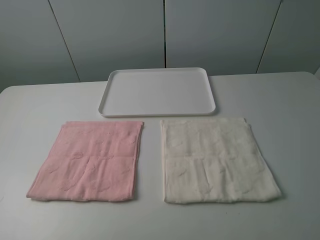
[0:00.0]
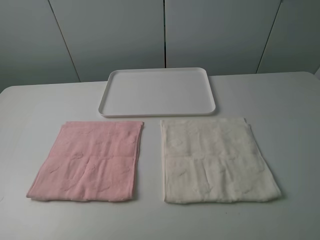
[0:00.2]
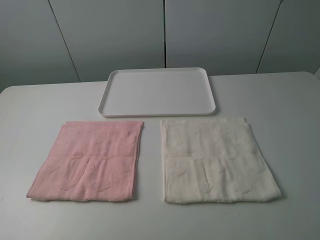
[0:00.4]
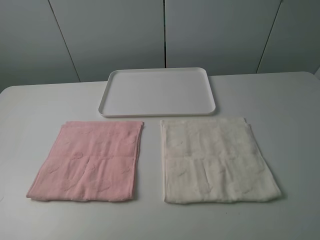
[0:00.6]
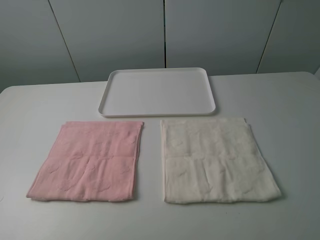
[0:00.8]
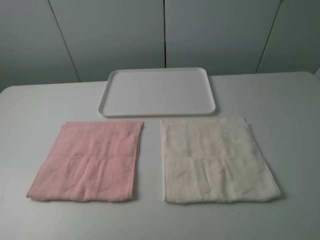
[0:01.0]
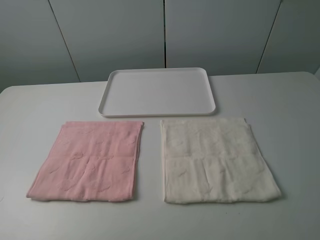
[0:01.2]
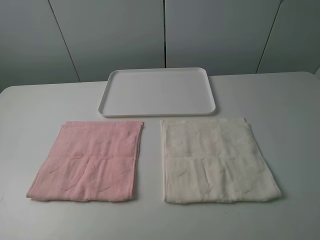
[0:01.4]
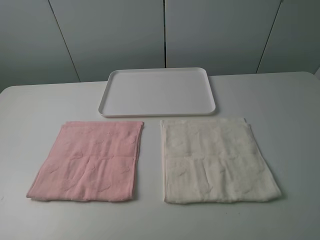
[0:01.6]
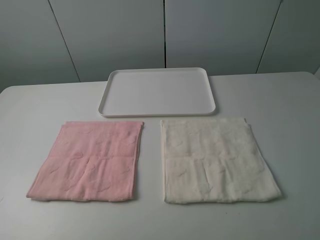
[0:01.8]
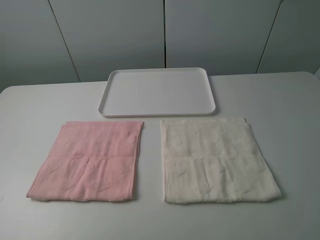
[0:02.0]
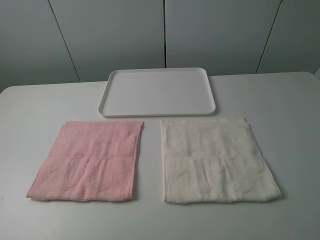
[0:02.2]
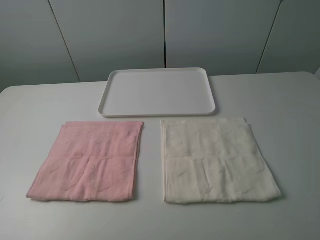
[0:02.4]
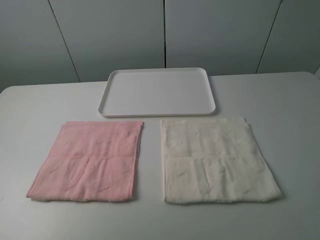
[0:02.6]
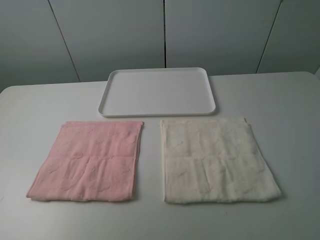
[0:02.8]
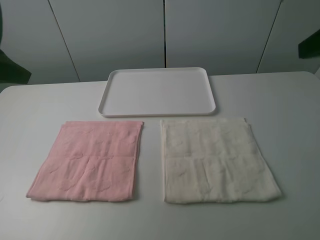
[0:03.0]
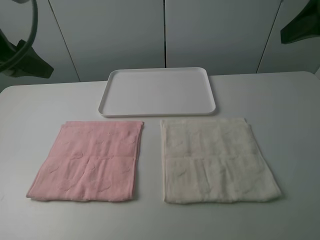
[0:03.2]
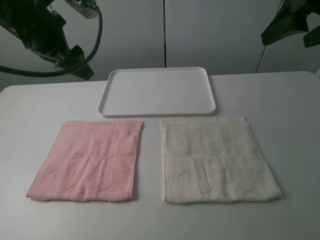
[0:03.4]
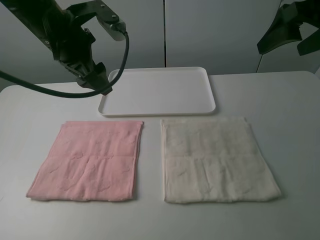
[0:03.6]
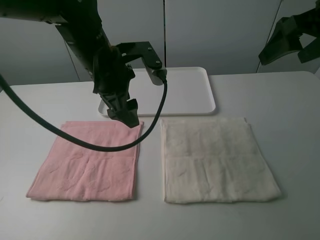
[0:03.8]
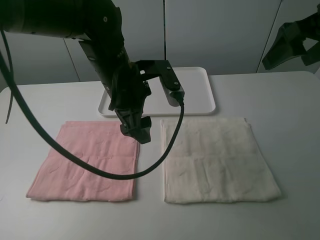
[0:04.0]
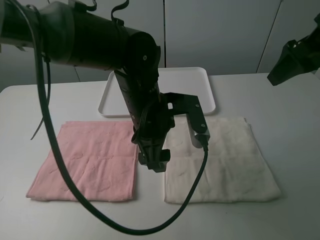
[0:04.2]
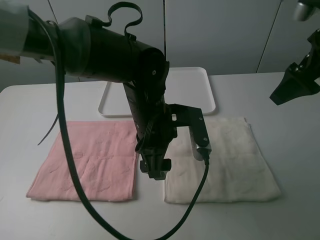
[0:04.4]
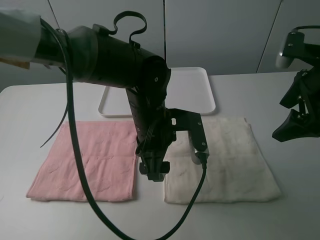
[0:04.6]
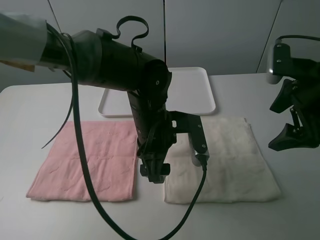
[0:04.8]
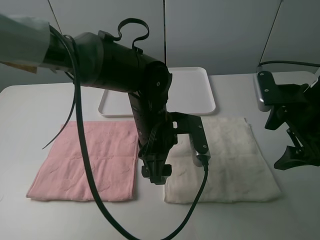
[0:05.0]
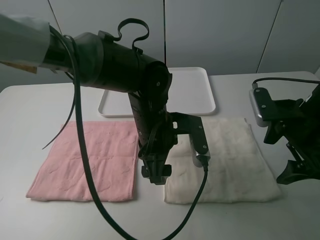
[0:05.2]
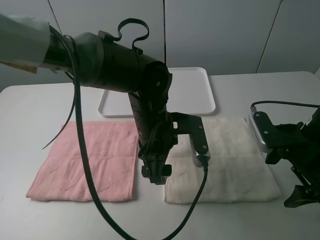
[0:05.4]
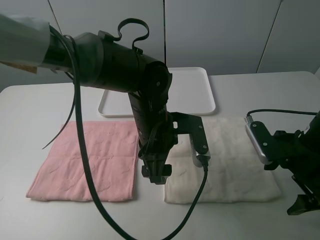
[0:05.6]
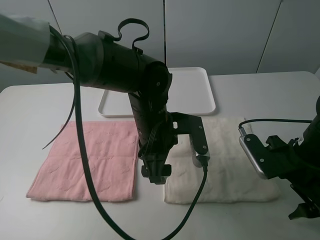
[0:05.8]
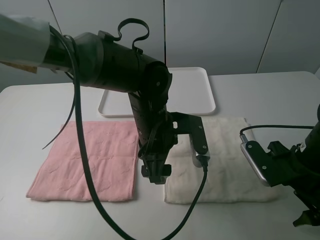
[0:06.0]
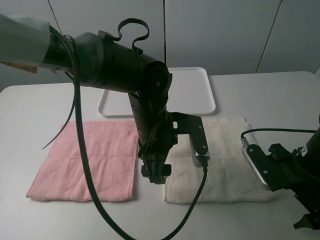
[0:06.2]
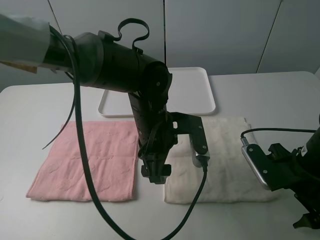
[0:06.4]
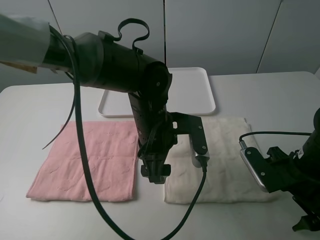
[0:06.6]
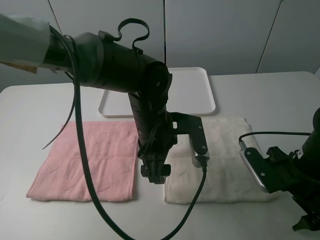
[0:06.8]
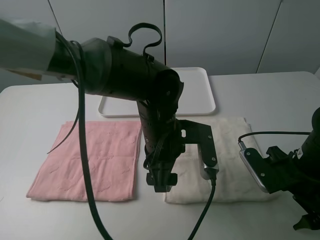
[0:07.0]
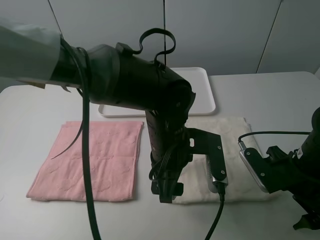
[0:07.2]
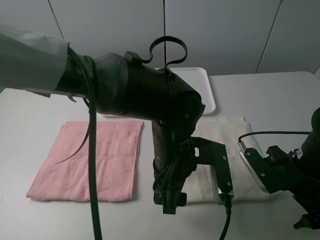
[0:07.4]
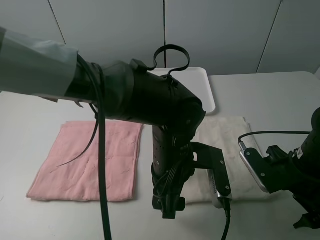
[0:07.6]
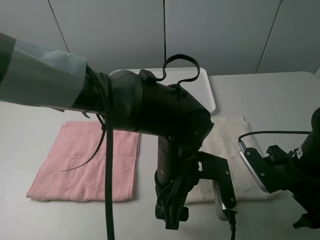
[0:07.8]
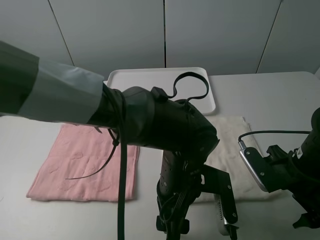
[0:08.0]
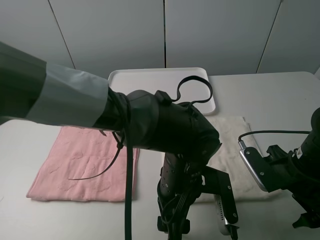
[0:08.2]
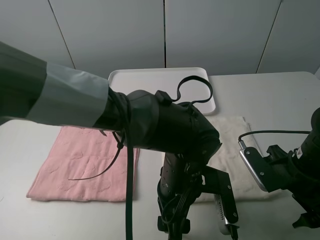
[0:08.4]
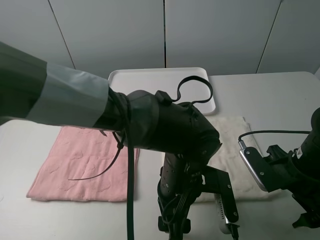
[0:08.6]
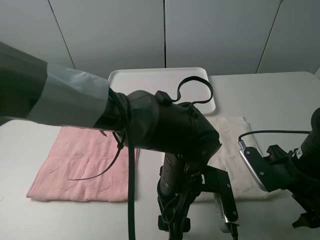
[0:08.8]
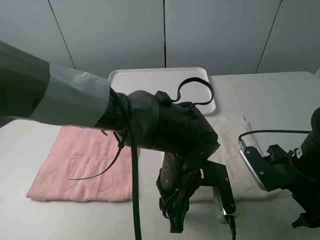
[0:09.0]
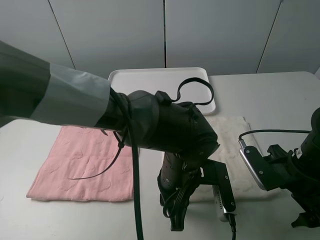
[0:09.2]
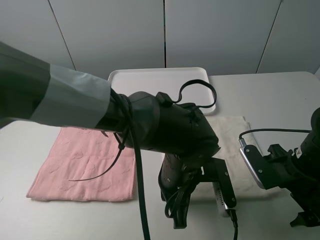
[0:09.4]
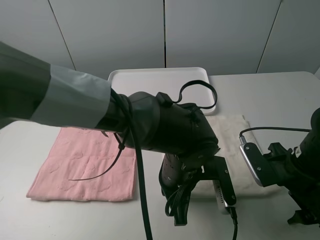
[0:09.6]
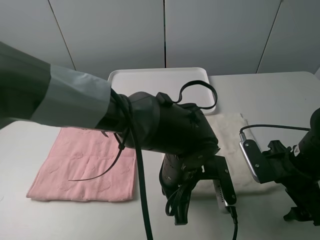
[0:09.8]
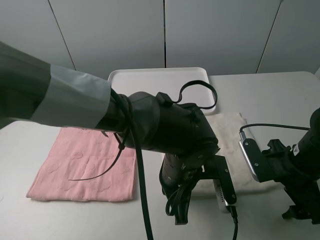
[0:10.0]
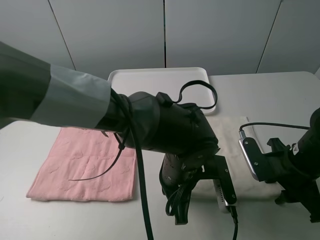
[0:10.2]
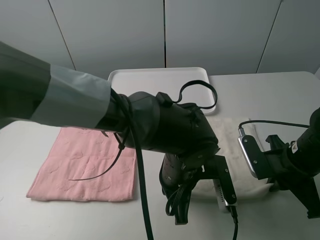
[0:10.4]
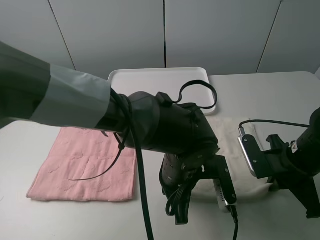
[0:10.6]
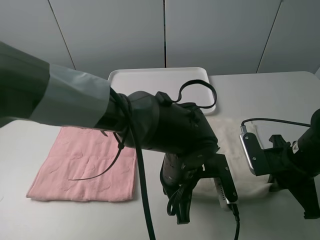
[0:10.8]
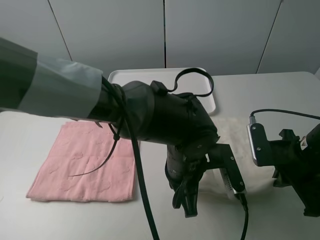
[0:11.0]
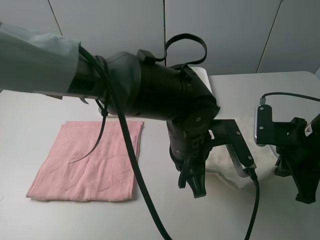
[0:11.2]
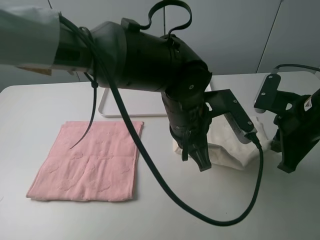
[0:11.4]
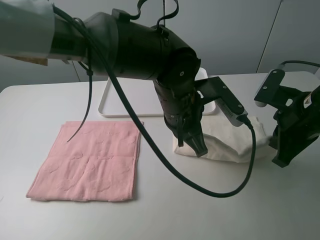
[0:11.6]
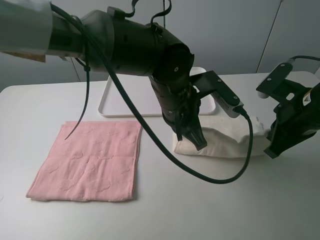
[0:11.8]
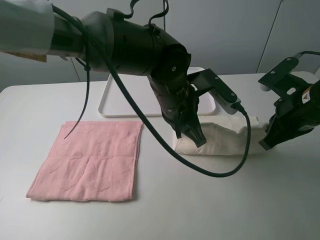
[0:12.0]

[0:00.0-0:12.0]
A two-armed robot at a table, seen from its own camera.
Task of the whole recording: fold one of the towels by two grippers and place it on the tray,then fold another towel by two grippers and place it on the folded towel.
Step, 0:00.0 to 0:10.4: Grasp the white towel with the left gripper.
0:00.0 to 0:01.6: Both grippers stay put.
0:01.6 to 0:03.0: The grippers both shift forward by roughly 20 cm.
0:03.0 to 0:04.4: The right gripper moves forward and downward, roughly 10 cm. Meanwhile the left gripper is displaced to the right and downward by some 30 cm.
0:04.4 to 0:06.0: The right gripper goes roughly 20 cm downward and backward.
0:06.0 to 0:07.6: The left gripper is displaced backward by approximately 5 cm.
0:07.6 to 0:09.0: The left gripper closes its fingers.
0:09.0 to 0:10.4: The left gripper closes. Meanwhile the right gripper closes its fingers.
0:10.4 to 0:12.0: The right gripper goes some 10 cm upward; the left gripper is displaced forward and upward by some 10 cm.

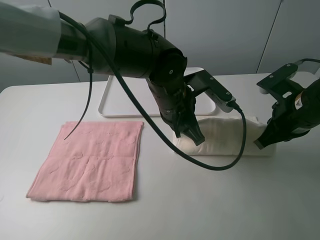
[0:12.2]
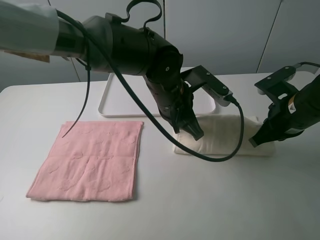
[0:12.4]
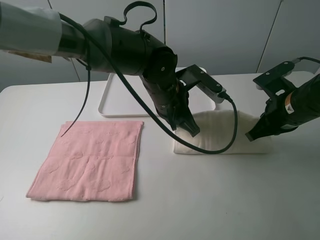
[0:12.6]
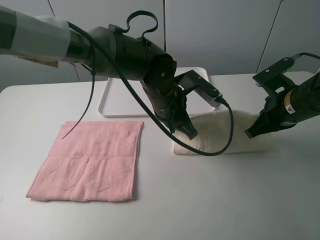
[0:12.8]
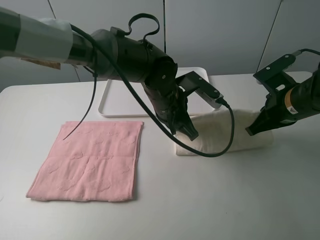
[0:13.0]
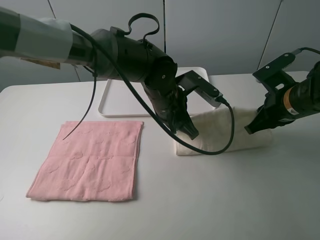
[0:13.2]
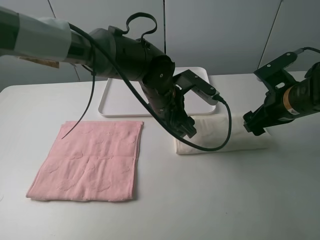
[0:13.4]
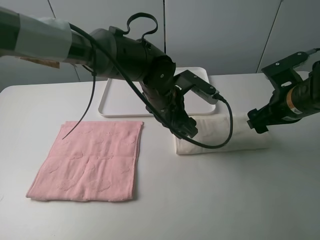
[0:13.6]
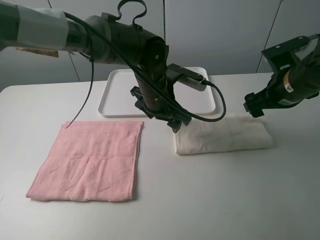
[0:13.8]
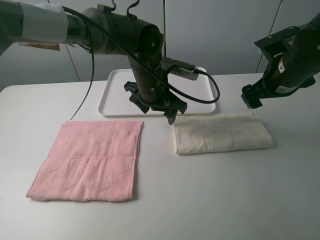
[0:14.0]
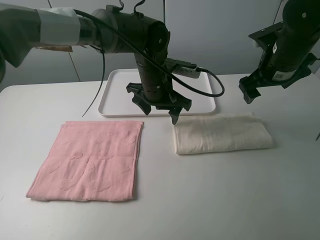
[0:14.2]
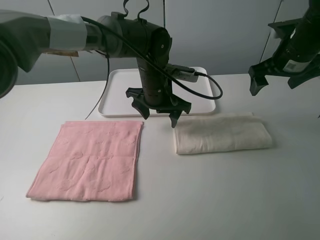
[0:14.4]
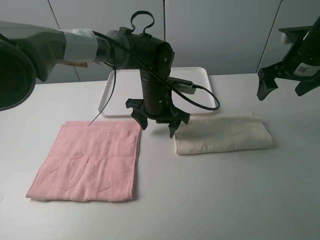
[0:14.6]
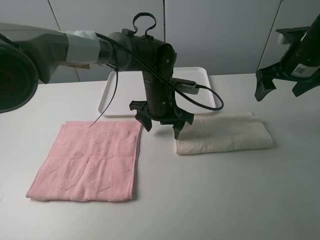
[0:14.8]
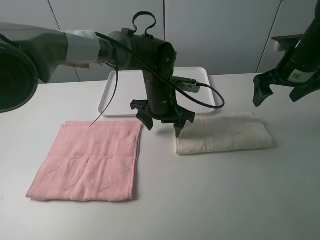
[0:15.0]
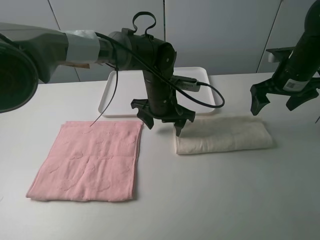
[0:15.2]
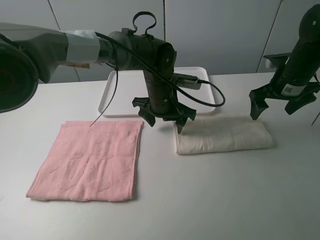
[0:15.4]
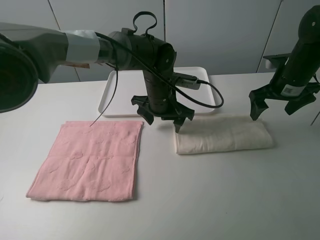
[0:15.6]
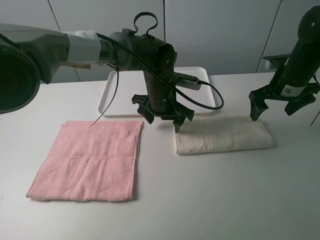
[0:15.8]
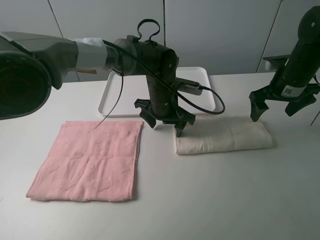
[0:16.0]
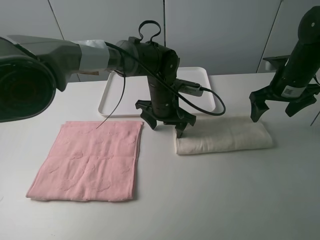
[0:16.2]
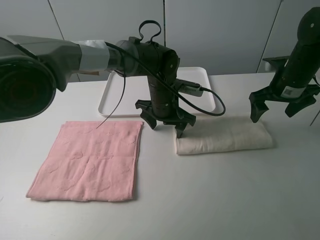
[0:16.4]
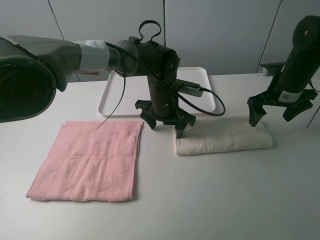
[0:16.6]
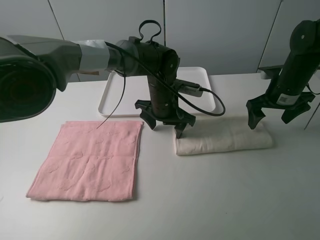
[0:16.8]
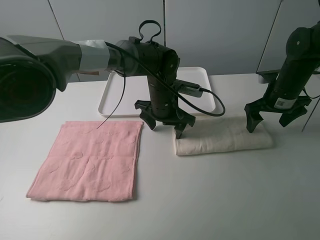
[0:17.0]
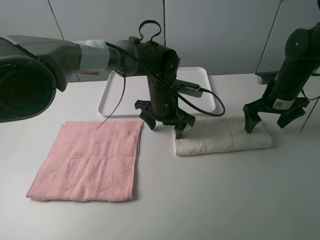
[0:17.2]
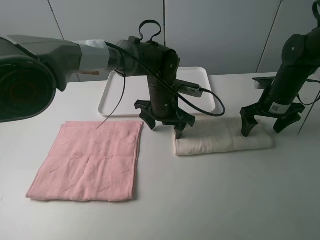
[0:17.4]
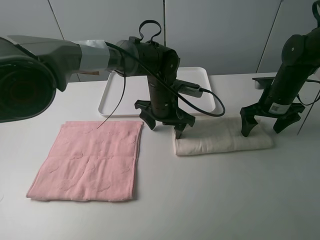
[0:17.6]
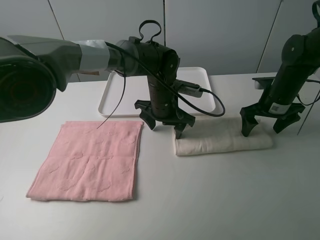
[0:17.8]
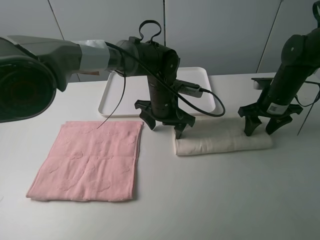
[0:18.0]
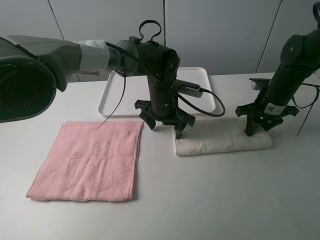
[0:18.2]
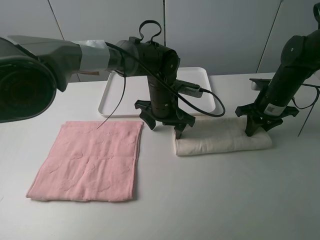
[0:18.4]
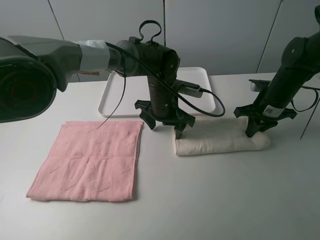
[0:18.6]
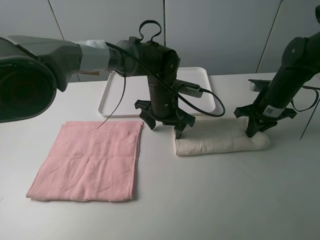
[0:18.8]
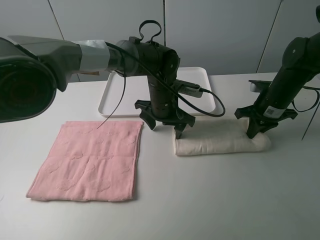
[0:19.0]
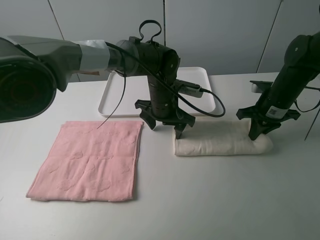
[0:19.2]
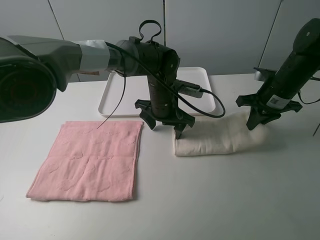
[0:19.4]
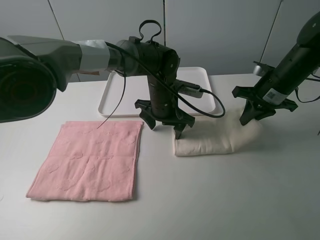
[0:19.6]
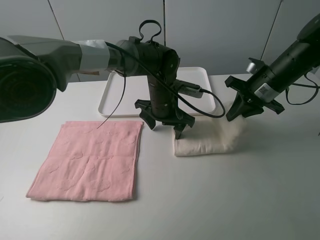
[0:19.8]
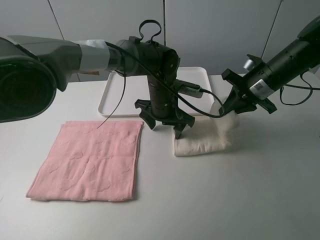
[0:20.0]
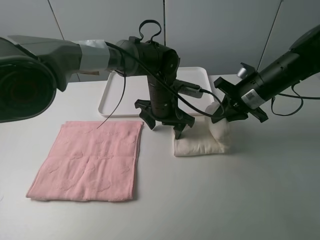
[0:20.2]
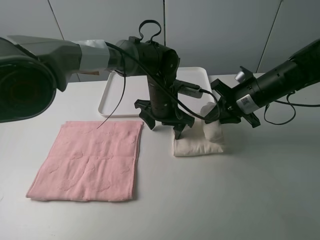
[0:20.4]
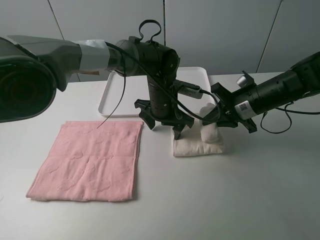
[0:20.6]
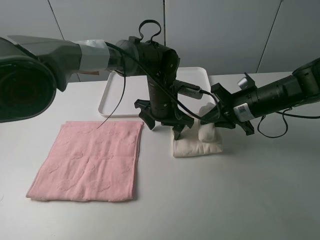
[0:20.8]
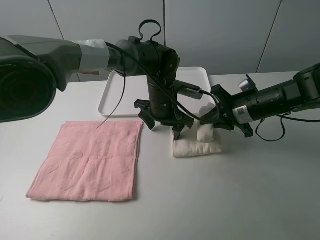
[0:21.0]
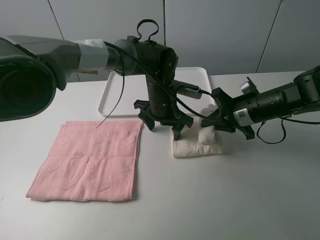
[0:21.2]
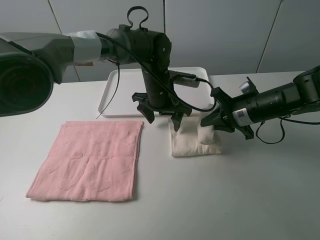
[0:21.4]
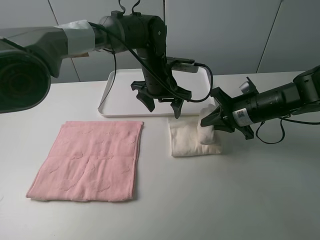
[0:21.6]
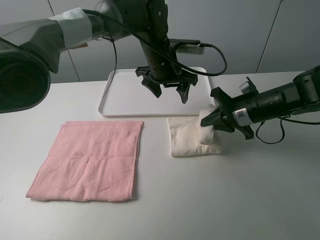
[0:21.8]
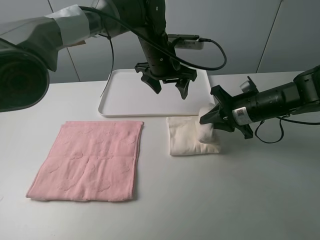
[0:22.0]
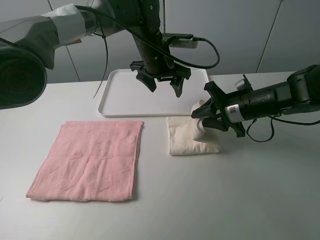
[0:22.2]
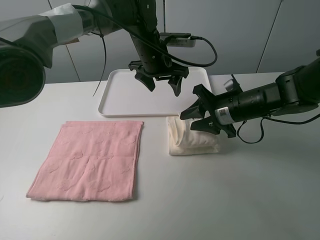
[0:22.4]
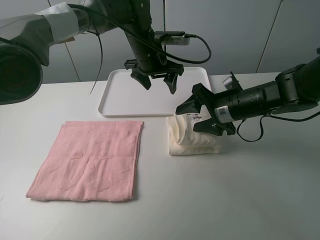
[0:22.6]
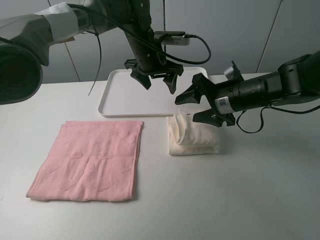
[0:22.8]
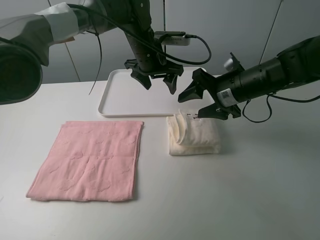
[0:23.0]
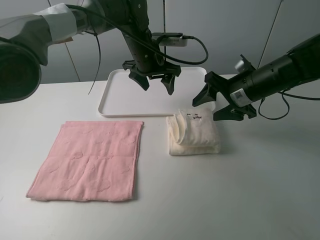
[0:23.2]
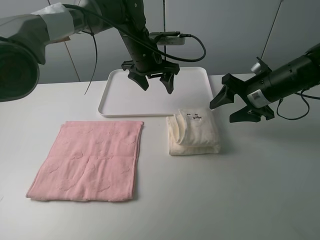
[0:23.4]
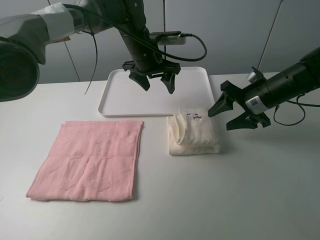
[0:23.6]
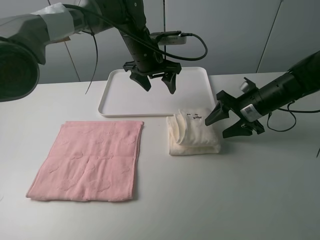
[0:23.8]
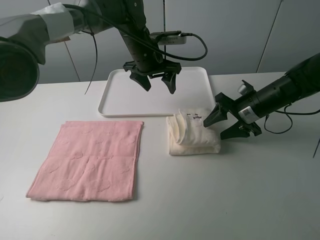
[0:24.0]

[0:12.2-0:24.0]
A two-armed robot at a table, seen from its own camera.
Task of the whole recording: fold one of the towels by two grippers and place it on the tray,then fold another towel by two grippers and place it on the folded towel.
Step, 0:14.0 to 0:16.4: Press the white towel with the left gripper.
Step, 0:16.6 to 0:18.4: Grasp the white towel with the right gripper.
Step, 0:18.6 to 0:22.6: Fold the white towel from right to left with right gripper.
0:12.2 to 0:13.6: The left gripper opens its fingers; the right gripper opens its fingers.
0:13.6 to 0:15.2: The right gripper goes approximately 10 cm forward; the left gripper shifts by approximately 5 cm.
0:15.2 to 0:16.6: The grippers make only small movements.
0:16.6 to 0:18.2: The right gripper closes its fingers.
0:18.2 to 0:19.6: The right gripper travels upward by roughly 5 cm.
0:19.6 to 0:21.0: The right gripper ends up roughly 5 cm from where it was.
0:21.0 to 0:22.6: The right gripper opens, while the left gripper travels upward and forward by roughly 10 cm.
0:22.6 to 0:24.0: The right gripper shifts roughly 5 cm to the right.
